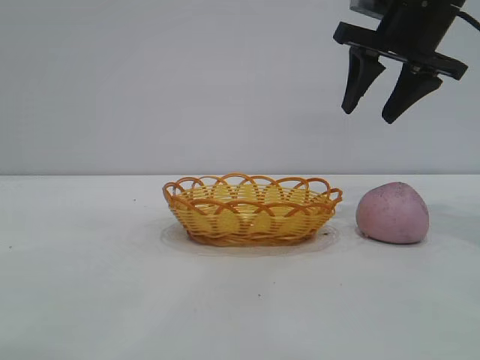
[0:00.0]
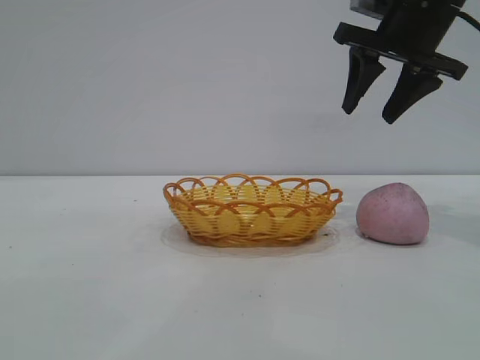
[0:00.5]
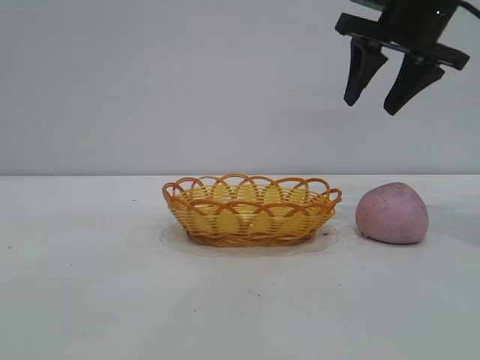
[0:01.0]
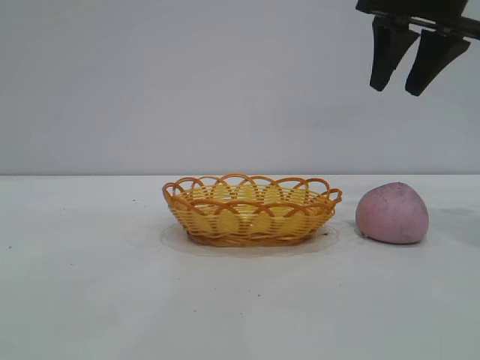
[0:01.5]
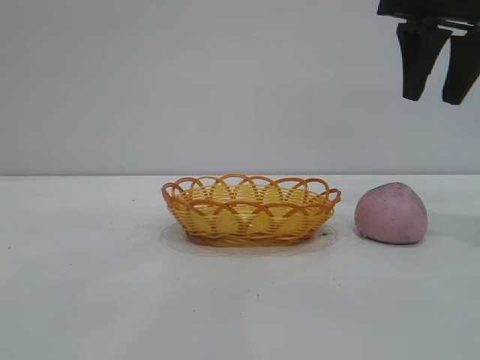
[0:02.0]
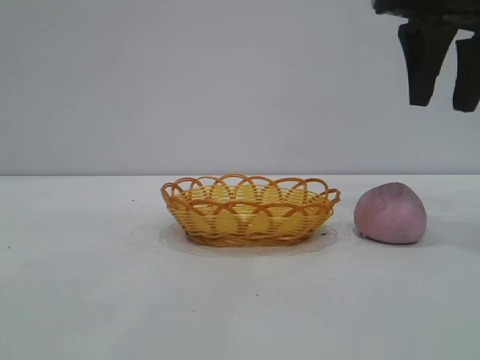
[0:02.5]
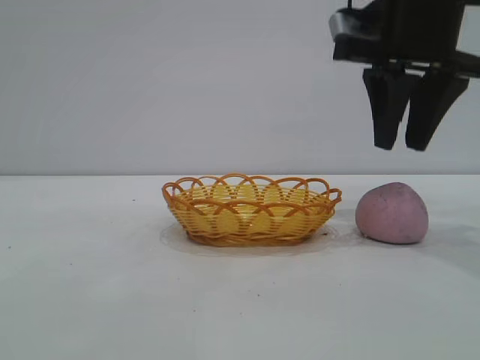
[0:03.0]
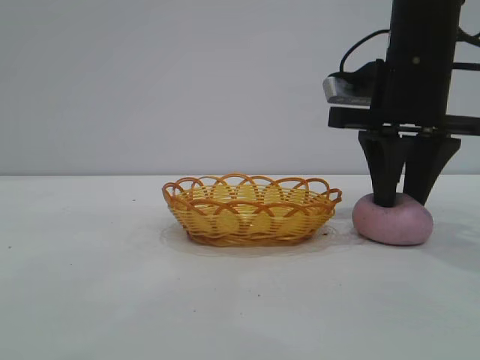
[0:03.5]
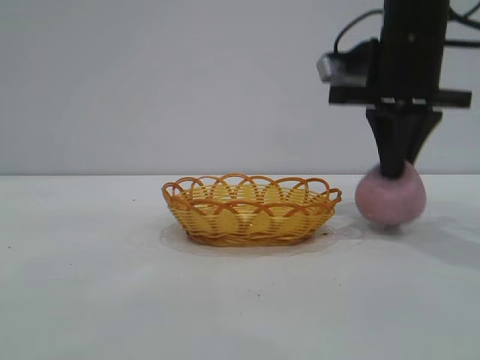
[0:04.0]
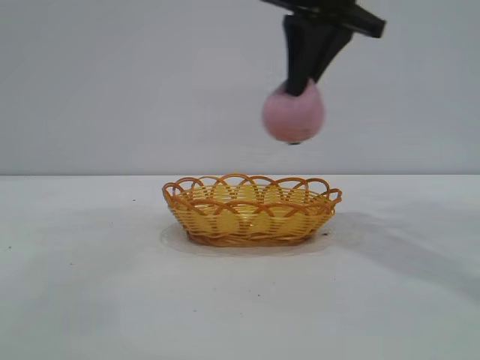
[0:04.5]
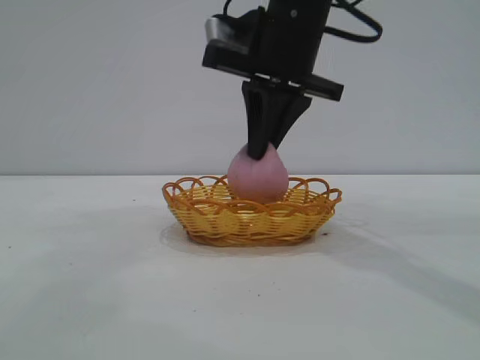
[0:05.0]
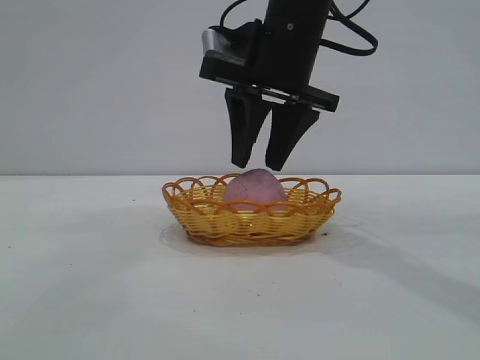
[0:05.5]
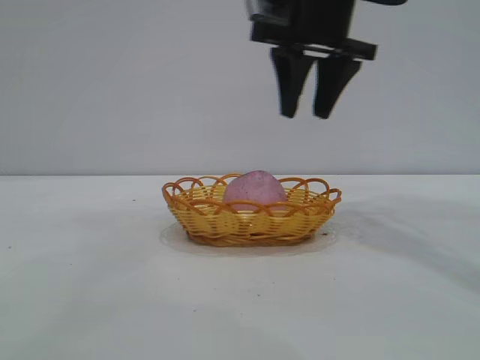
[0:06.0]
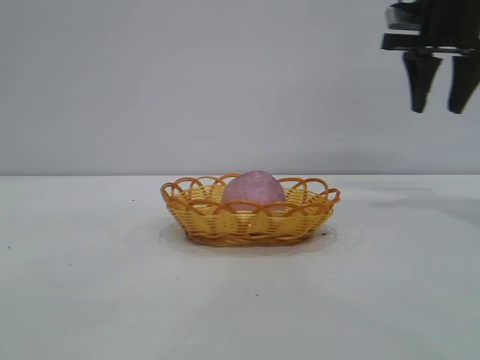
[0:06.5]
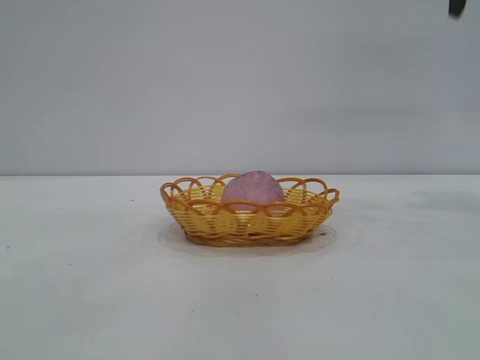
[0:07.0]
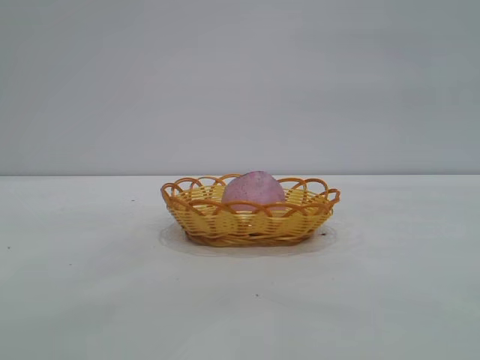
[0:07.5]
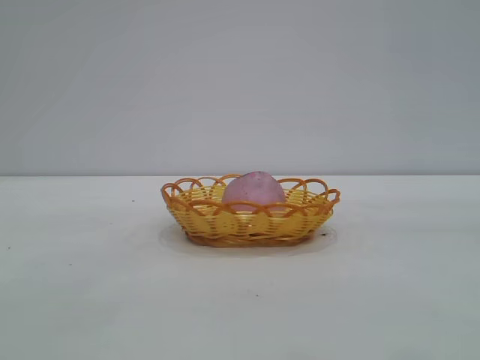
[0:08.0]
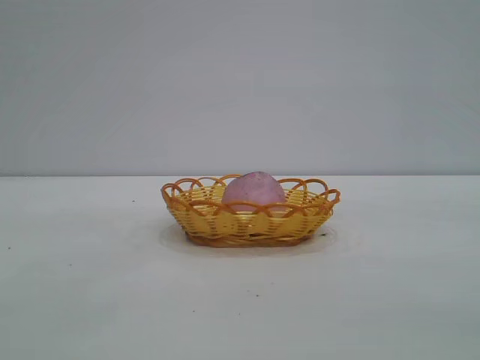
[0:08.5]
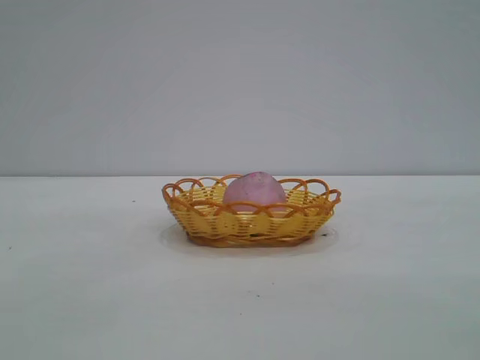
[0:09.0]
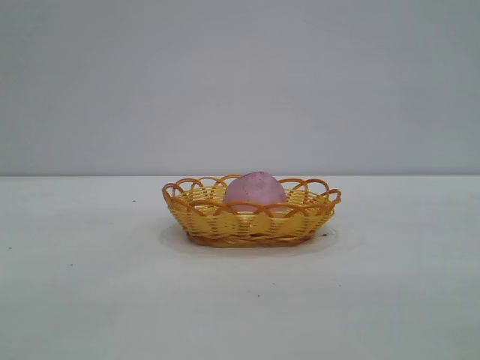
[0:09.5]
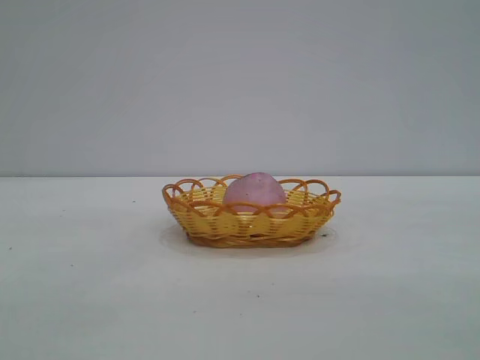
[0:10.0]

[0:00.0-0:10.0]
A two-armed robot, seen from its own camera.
Task of the whole recording: pick up the peach and put it into the basket.
Step, 0:00.0 to 0:04.0: Pick up the peach.
Step, 0:04.5 to 0:05.5: place the peach into the basket.
